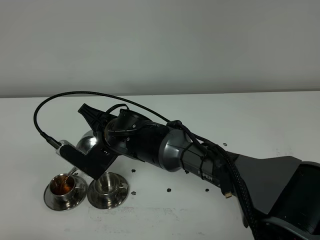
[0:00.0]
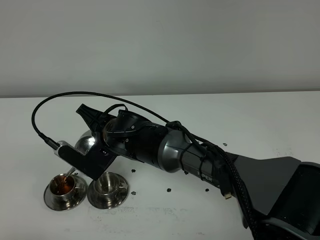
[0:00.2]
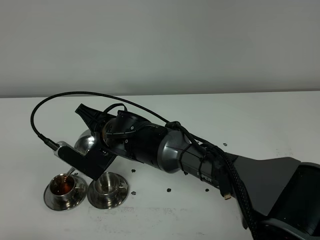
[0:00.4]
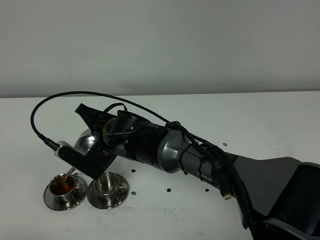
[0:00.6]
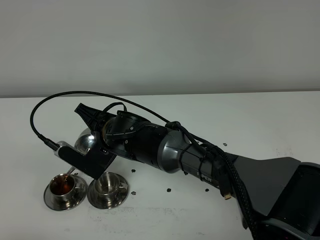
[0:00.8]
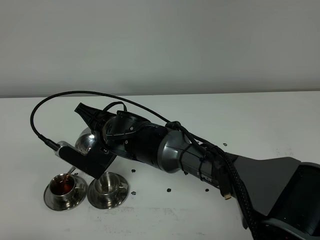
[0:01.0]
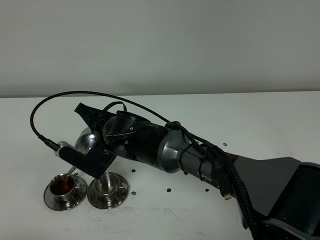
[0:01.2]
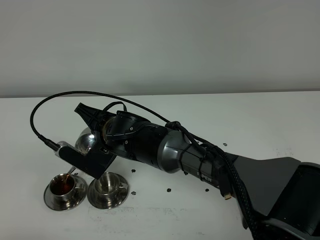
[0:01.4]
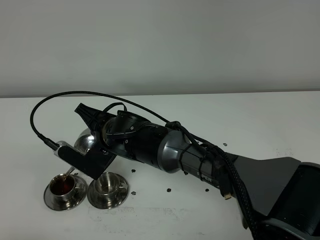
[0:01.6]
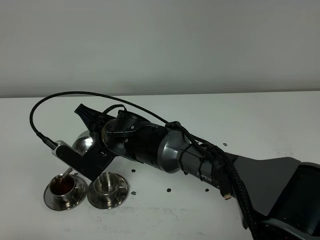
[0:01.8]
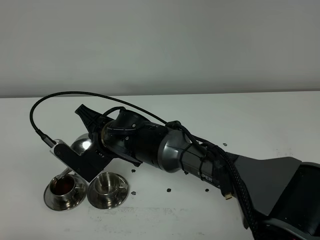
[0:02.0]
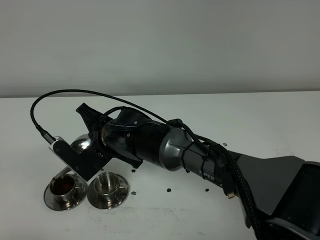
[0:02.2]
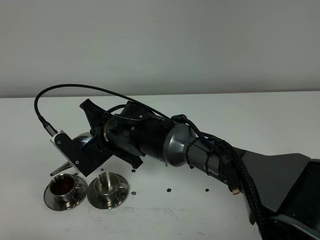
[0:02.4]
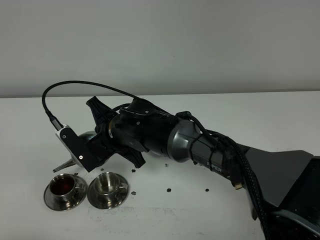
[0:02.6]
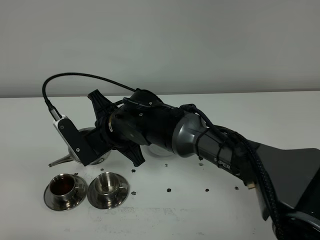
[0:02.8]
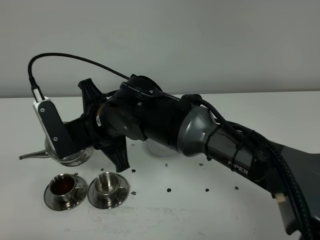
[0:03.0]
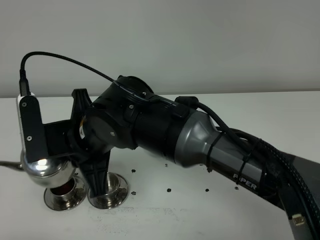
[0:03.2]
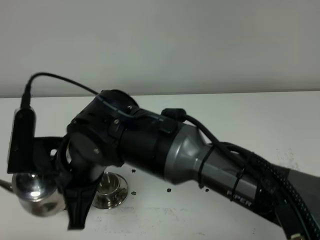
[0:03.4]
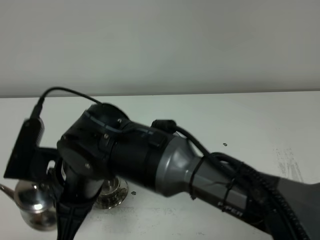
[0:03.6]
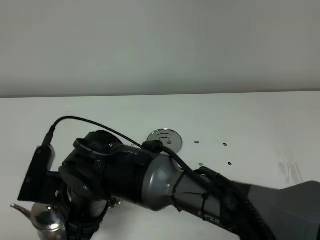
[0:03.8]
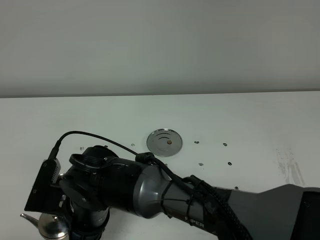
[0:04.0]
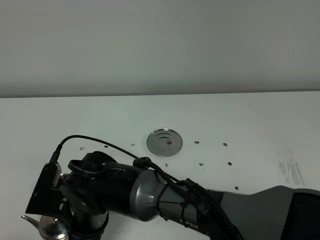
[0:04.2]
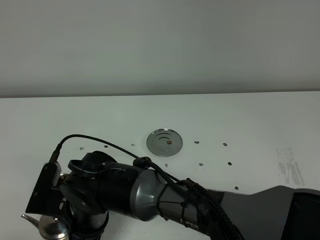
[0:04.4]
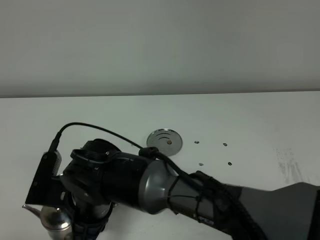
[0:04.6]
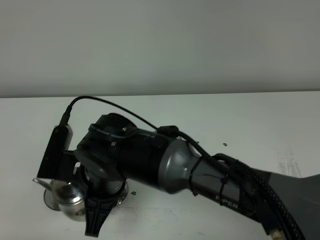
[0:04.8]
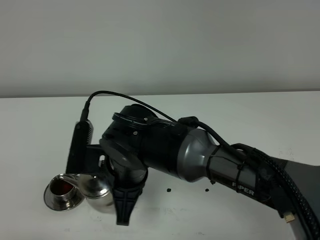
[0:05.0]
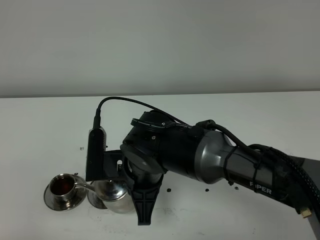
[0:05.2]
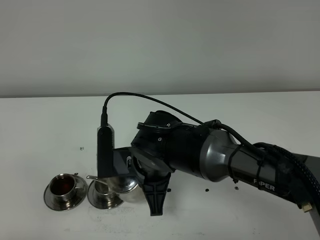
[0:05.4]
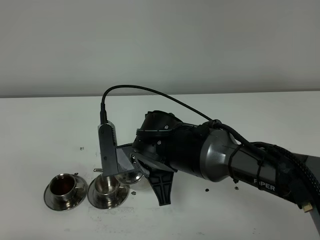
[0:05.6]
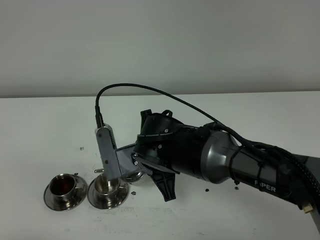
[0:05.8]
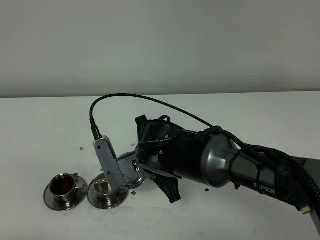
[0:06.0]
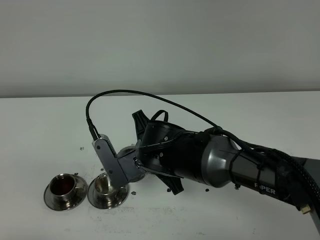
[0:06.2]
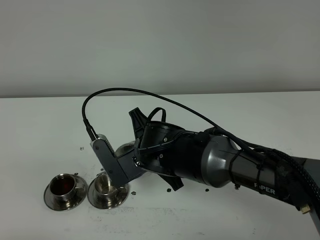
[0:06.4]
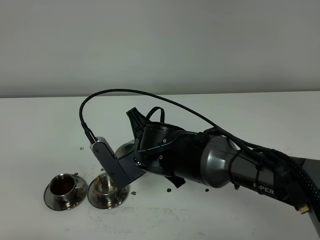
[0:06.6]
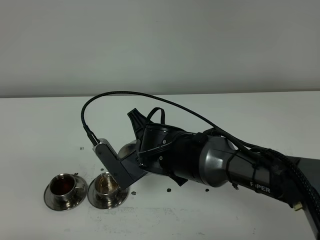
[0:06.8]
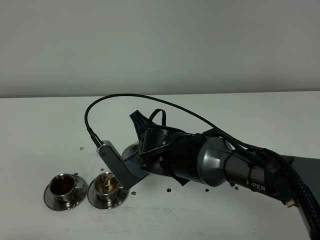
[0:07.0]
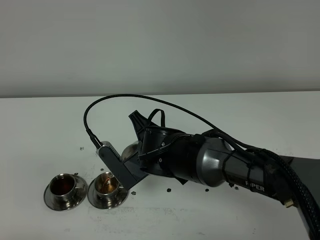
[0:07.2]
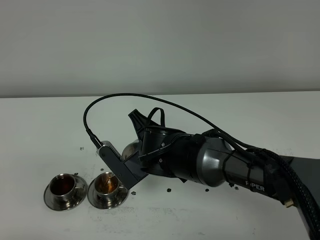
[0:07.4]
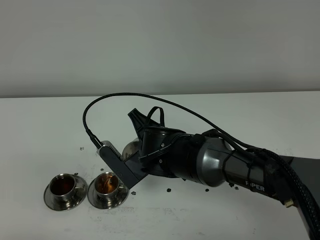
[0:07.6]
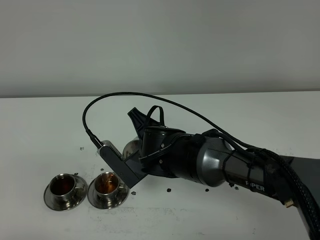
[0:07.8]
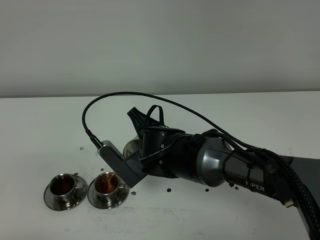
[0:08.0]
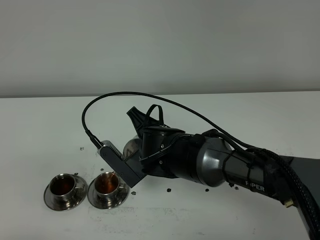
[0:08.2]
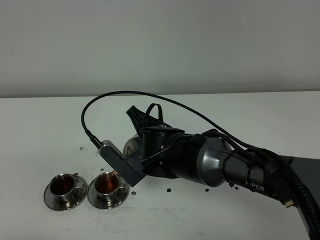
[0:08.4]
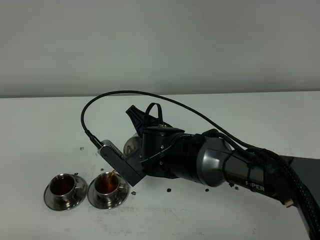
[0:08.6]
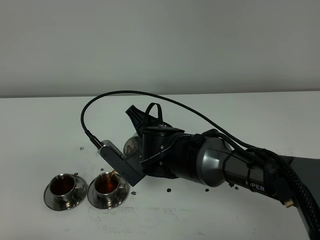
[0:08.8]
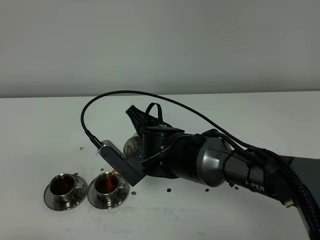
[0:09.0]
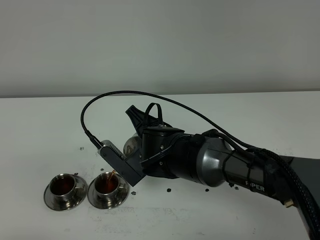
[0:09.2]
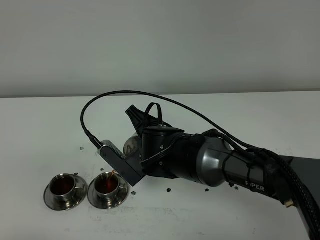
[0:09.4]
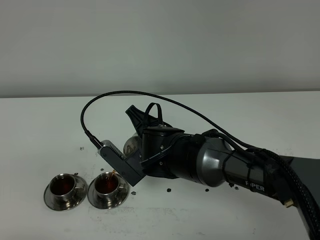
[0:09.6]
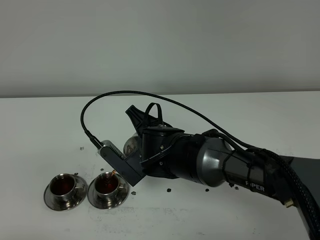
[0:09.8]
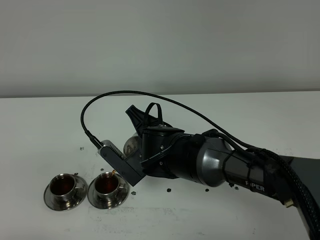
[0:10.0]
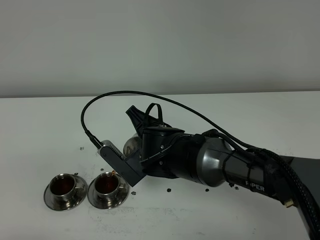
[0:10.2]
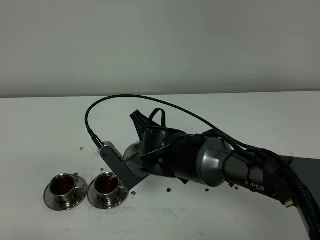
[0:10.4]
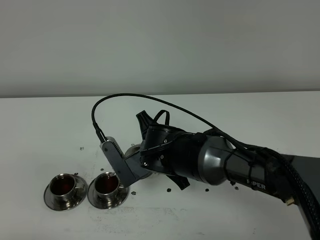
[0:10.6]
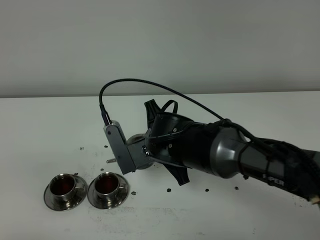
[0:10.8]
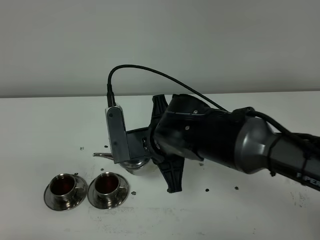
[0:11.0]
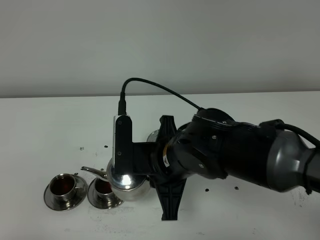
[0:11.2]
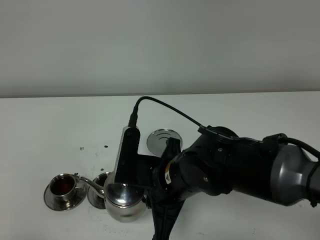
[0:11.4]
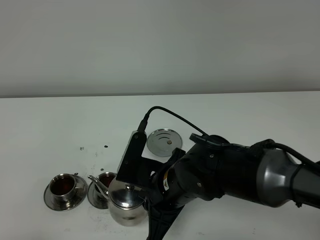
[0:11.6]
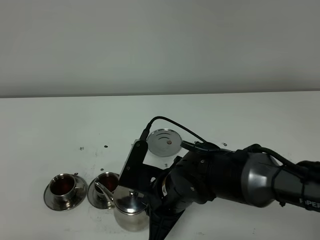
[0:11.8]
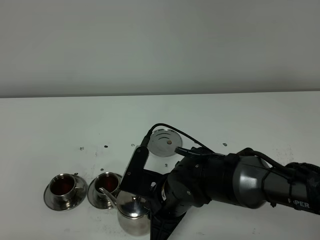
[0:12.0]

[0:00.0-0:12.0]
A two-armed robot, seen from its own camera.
Task of the whole recording: grasp the stainless steel teapot and pour the tea into the two stainless steel teacups one by one, put the stainless steel teapot back in its original place.
0:00.0 to 0:01.6: Both grippers stay put.
0:01.6 to 0:03.0: The right gripper is displaced upward by about 10 cm.
0:03.0 to 0:04.4: The right gripper heads downward and backward, covering about 15 cm.
0:04.4 to 0:06.0: The right gripper goes approximately 15 cm to the right and forward.
0:07.6 to 0:10.4: The grippers make only small movements.
0:10.4 to 0:12.0: The right gripper is displaced backward by some 5 cm.

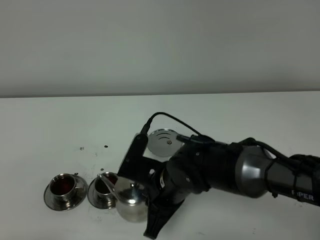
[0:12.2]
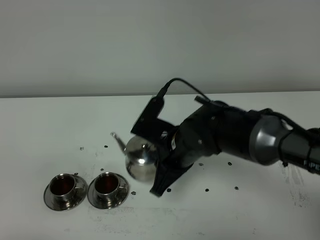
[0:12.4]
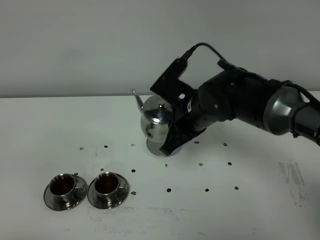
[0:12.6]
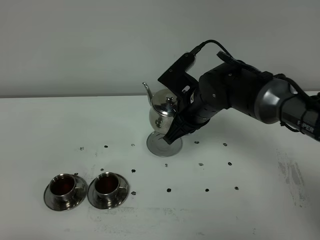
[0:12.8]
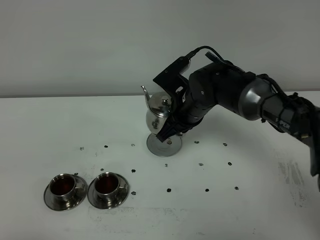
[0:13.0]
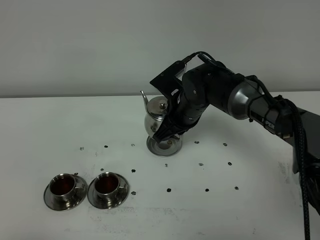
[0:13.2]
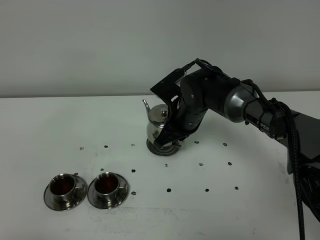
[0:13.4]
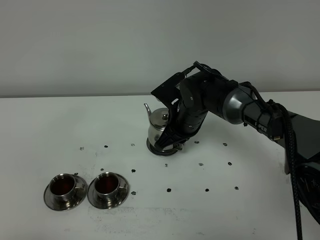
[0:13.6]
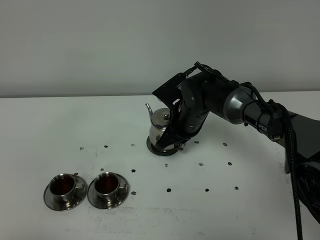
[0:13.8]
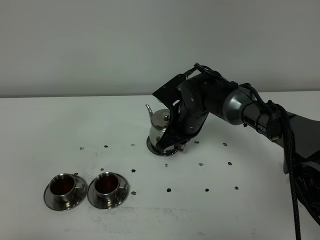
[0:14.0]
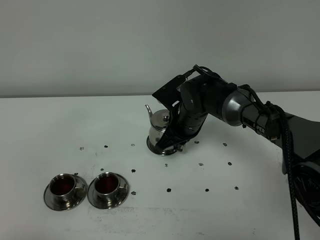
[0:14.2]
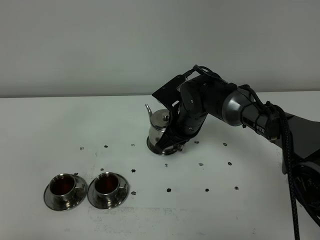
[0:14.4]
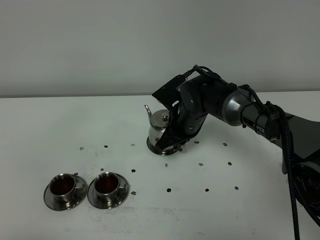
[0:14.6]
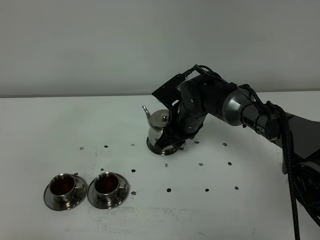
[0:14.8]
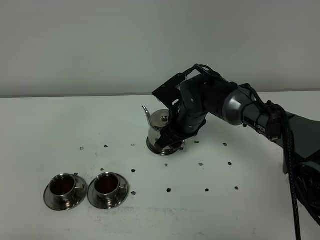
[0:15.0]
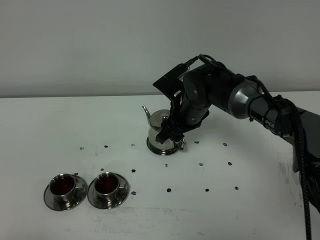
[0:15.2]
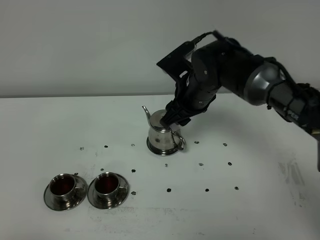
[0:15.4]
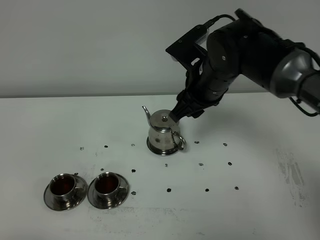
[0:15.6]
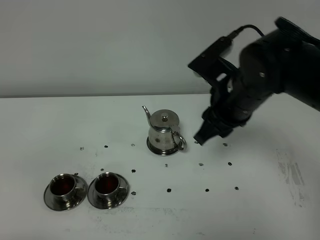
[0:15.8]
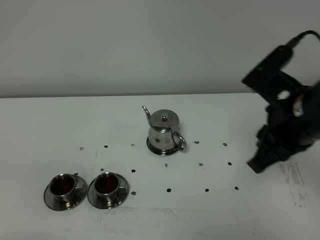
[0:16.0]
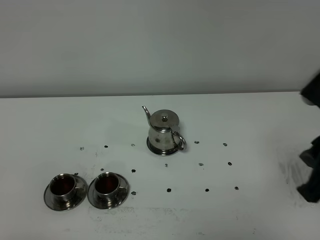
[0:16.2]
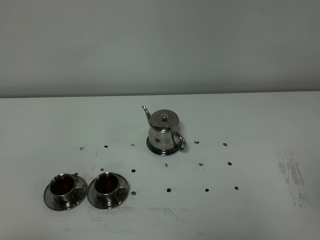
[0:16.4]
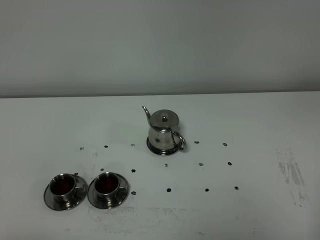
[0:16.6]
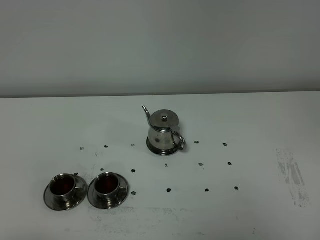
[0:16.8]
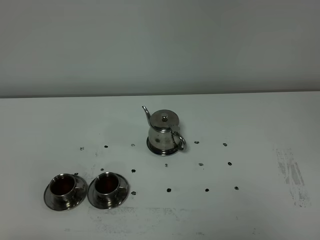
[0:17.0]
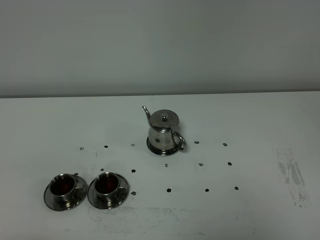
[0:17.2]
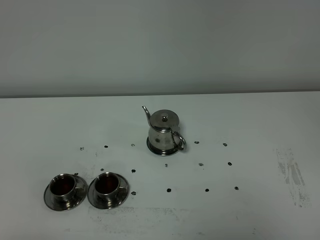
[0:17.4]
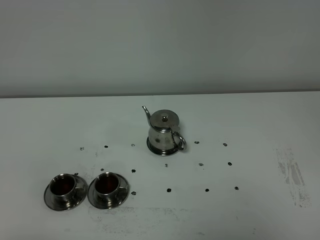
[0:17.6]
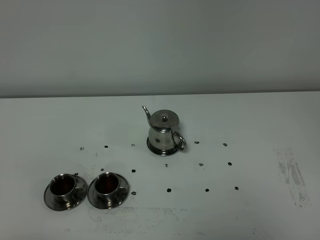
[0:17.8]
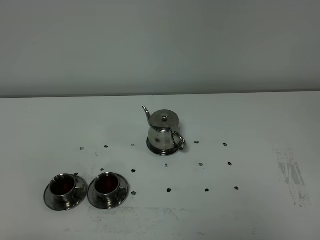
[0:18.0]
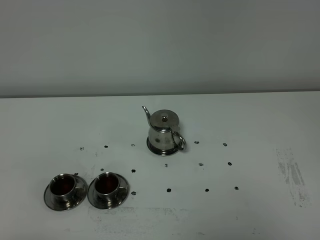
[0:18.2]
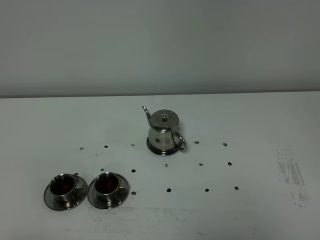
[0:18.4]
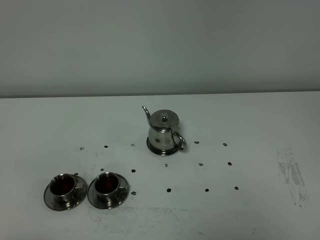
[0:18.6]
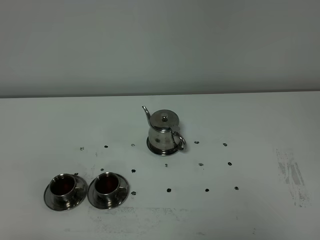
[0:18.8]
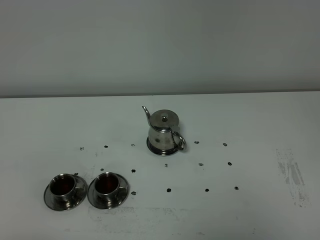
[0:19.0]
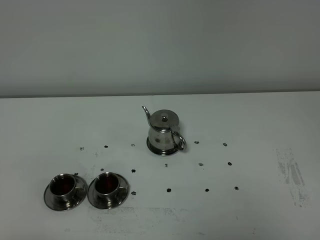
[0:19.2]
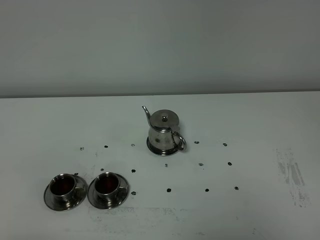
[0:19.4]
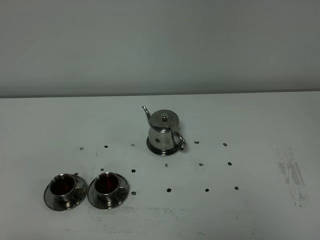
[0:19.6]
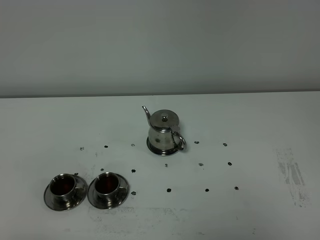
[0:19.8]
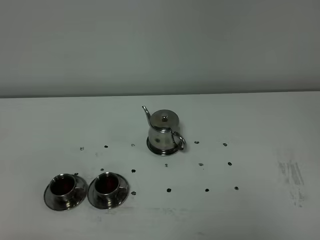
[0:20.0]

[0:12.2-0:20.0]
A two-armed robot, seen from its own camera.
Task of the whole recording: grasp the stainless steel teapot and pour the tea into the two stainless steel teacups one by one, put the stainless steel teapot back in its original place.
0:12.2 to 0:13.8: The right gripper shifts approximately 15 cm forward.
0:13.8 to 0:15.4: The right gripper shifts roughly 10 cm upward, and opens.
0:15.4 to 0:16.8: The right gripper goes about 40 cm backward and to the right, and closes.
0:18.4 to 0:20.0: Both grippers stay about where they are.
